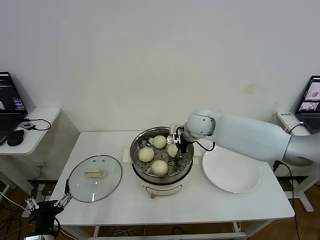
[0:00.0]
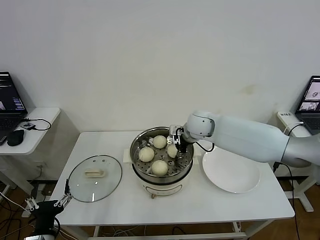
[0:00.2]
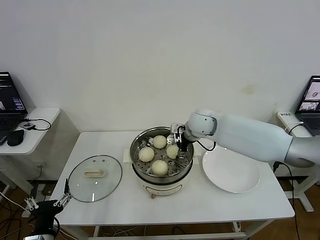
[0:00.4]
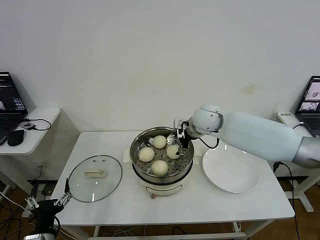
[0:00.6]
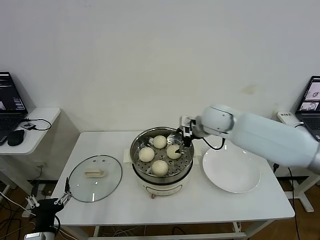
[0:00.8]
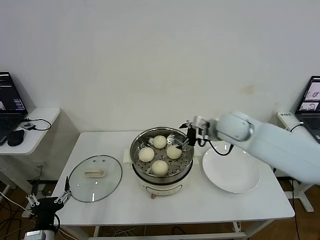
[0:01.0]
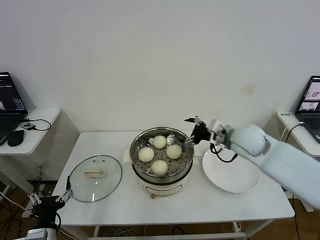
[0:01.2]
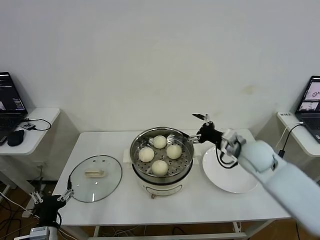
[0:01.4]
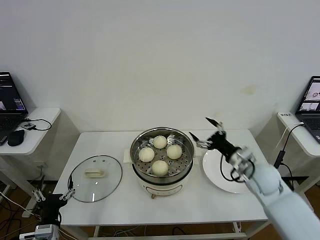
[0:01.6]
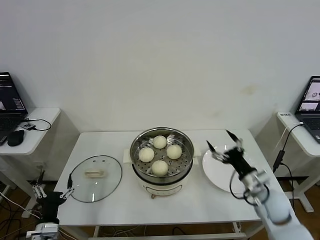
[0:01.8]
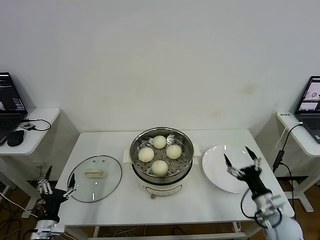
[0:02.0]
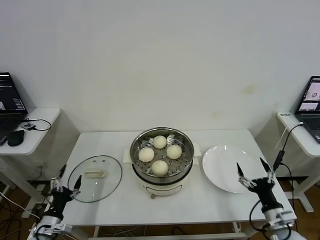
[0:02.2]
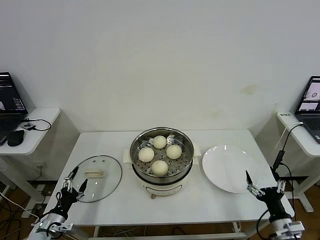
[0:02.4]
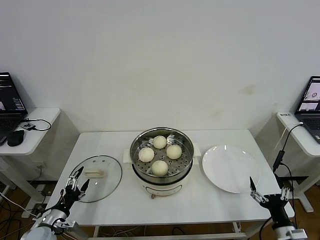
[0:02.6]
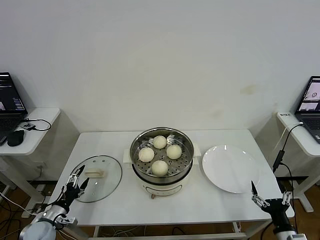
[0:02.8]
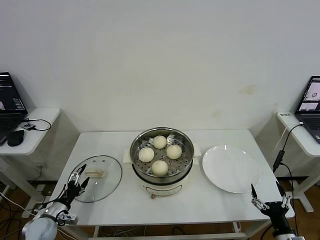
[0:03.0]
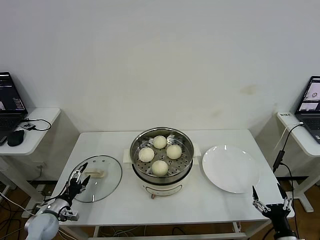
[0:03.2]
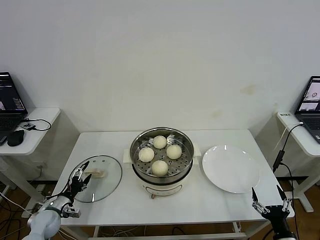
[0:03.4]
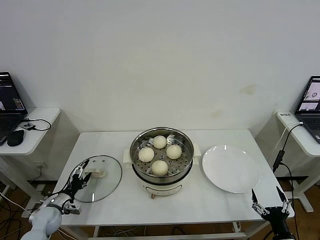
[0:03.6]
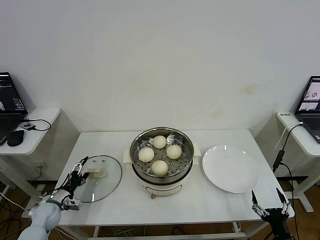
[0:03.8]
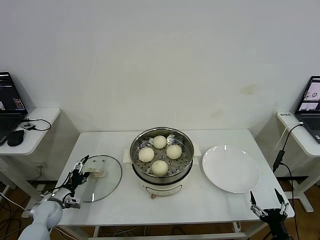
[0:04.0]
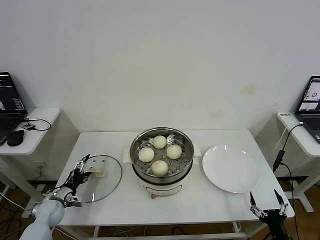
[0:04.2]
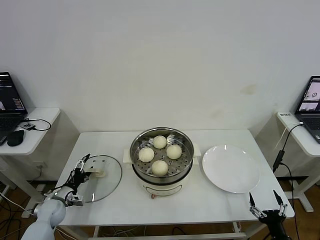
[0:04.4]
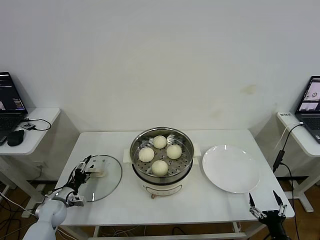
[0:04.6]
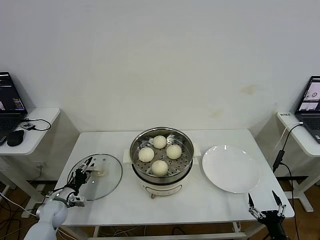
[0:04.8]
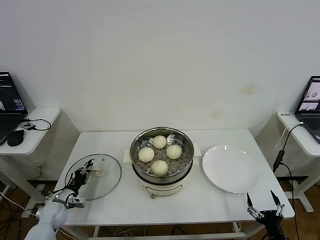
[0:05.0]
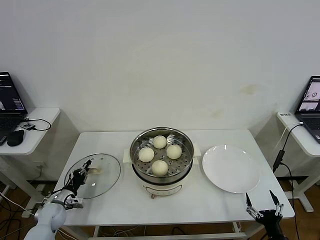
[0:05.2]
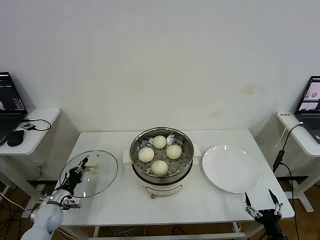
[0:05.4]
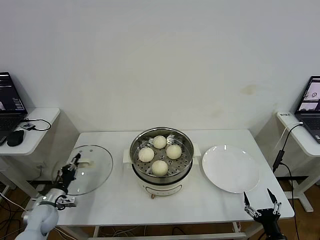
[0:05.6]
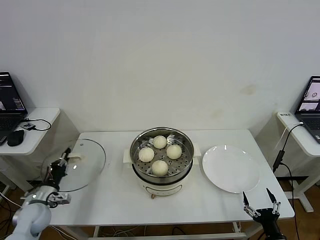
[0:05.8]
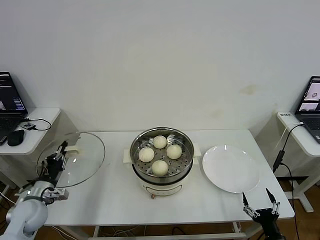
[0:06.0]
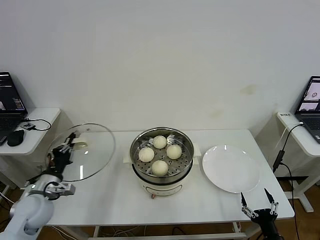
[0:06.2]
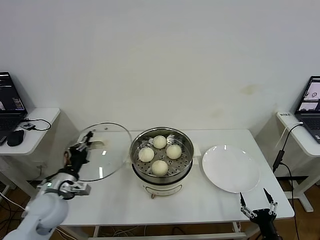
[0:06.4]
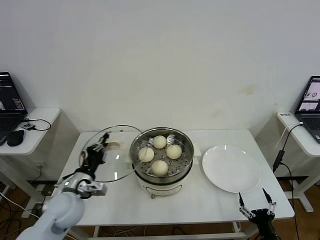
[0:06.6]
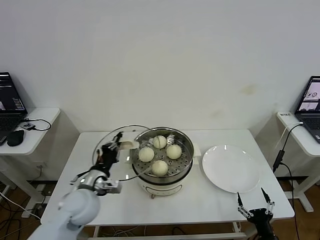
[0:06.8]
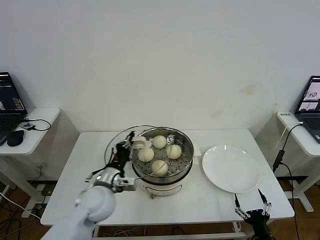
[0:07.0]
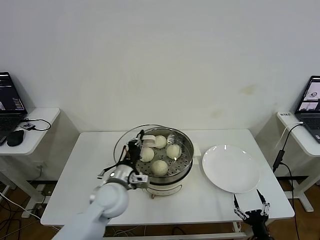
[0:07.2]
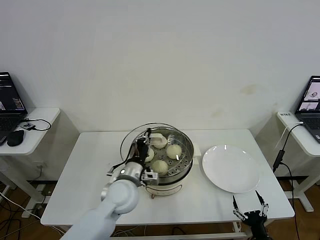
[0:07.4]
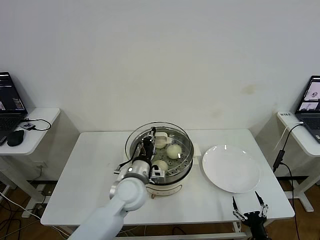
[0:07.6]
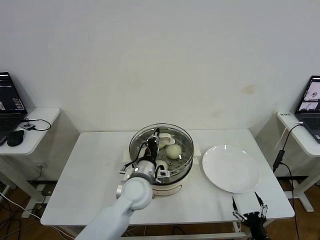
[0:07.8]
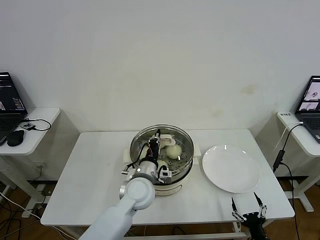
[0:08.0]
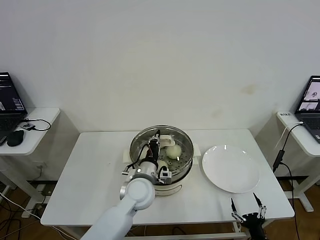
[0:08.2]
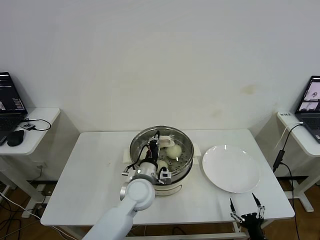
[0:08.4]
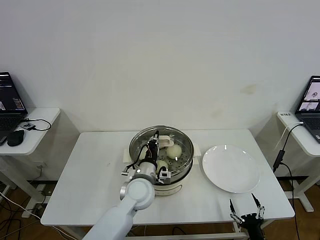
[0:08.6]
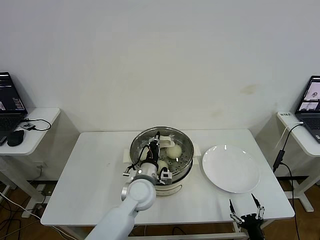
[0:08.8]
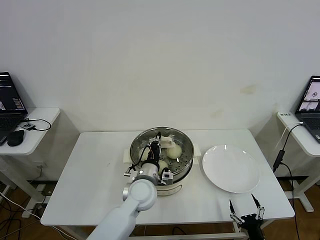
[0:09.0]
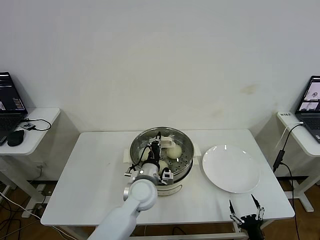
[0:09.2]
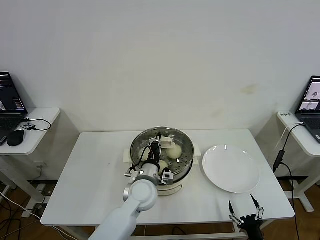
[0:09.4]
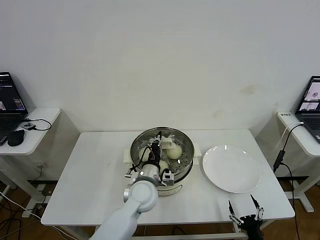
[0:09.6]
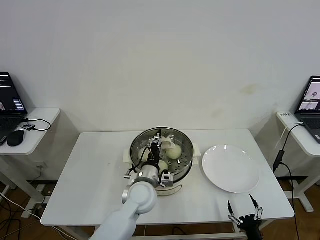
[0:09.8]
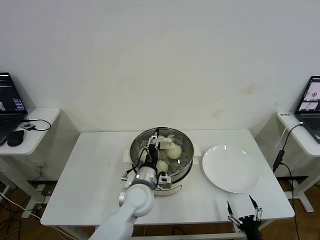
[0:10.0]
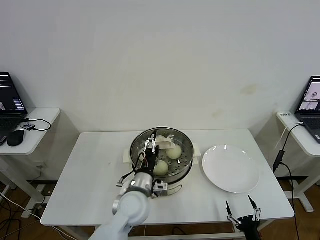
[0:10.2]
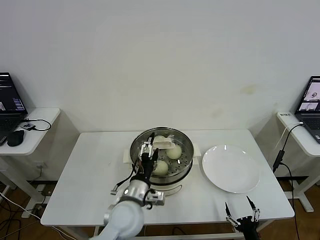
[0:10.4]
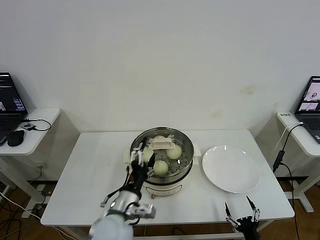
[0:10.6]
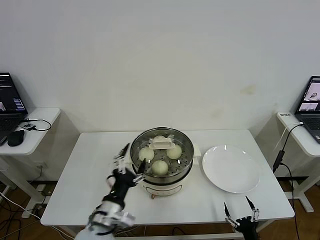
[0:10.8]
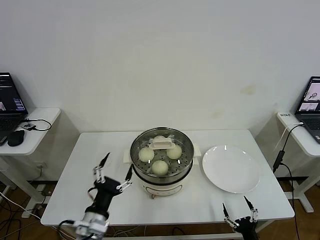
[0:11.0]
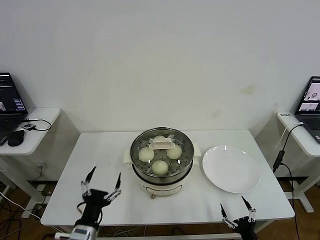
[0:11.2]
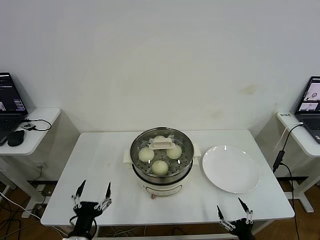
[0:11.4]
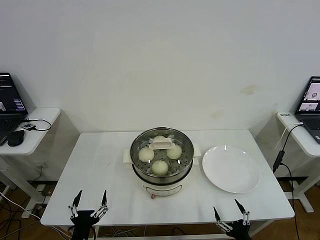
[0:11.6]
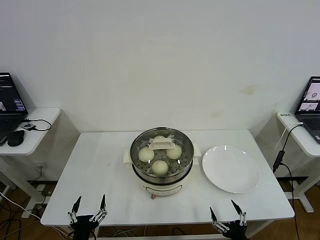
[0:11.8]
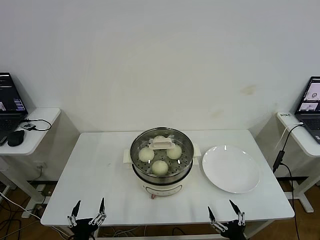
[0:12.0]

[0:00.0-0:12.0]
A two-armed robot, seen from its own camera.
Step, 0.6 to 5.4 s: Grasp the pot lid with left gripper.
Step, 5.6 to 9.8 s: Place the pot lid on the steamer with left gripper.
0.0 to 1.6 s: The right gripper goes some 25 cm to the right, backward and downward, and opens.
1.6 to 3.0 s: The left gripper moves forward, to the left and downward, roughly 15 cm. Meanwhile the right gripper goes roughly 25 cm backward and downward.
3.0 to 4.4 s: The left gripper moves forward, about 5 cm.
4.4 to 6.0 s: The left gripper is displaced upward by about 10 cm, and closes.
6.0 to 7.6 s: The left gripper heads to the right, covering about 30 cm.
7.6 to 9.0 s: The grippers make only small movements.
9.0 to 10.4 s: The left gripper travels backward by some 5 cm, and opens up.
10.4 to 12.0 s: The right gripper travels upward by some 5 cm. The left gripper heads backward, to the left and downward, covering about 25 cm.

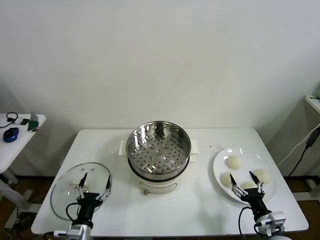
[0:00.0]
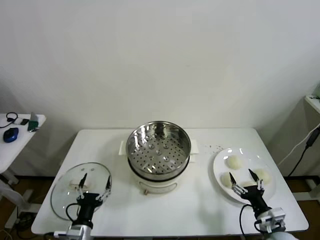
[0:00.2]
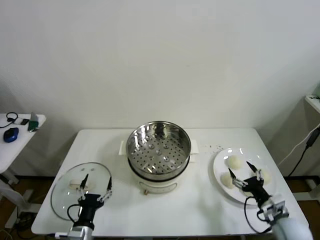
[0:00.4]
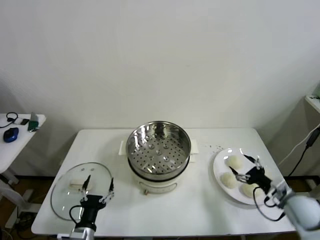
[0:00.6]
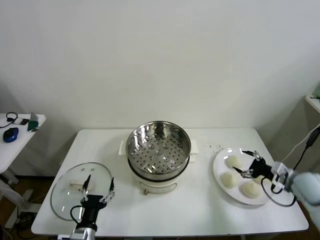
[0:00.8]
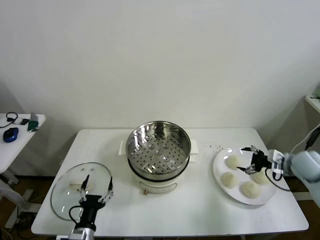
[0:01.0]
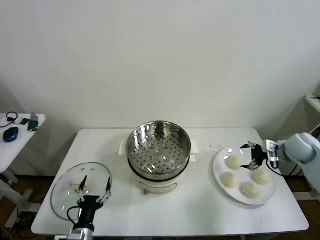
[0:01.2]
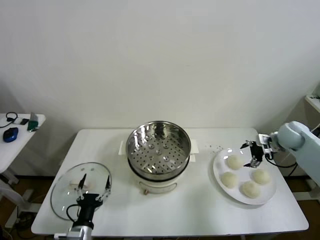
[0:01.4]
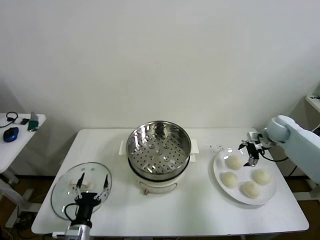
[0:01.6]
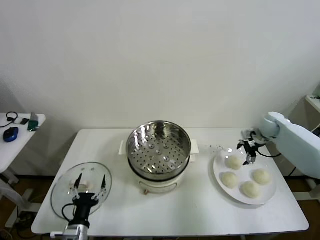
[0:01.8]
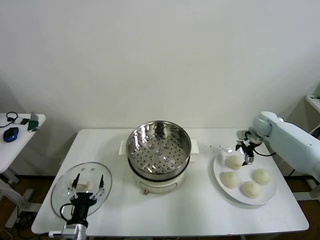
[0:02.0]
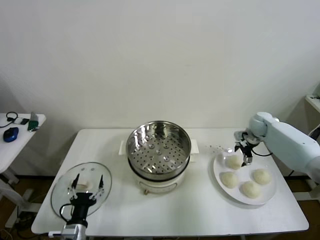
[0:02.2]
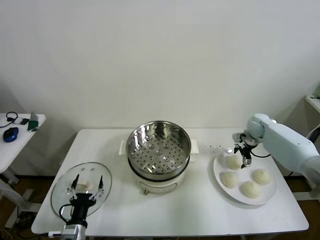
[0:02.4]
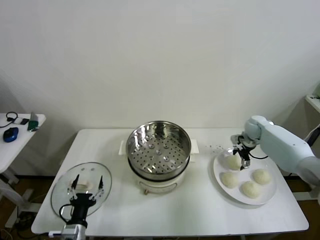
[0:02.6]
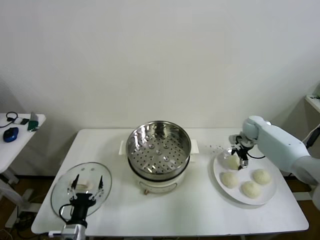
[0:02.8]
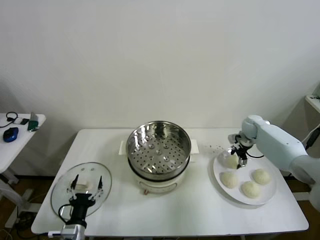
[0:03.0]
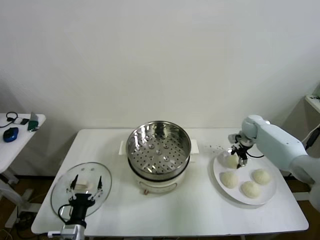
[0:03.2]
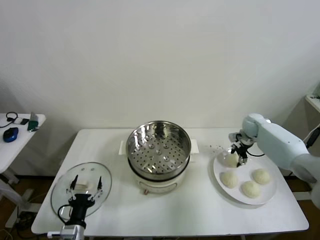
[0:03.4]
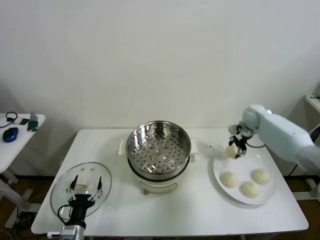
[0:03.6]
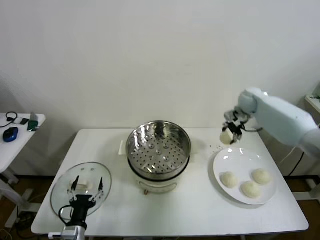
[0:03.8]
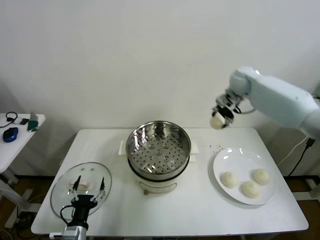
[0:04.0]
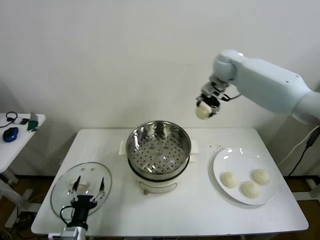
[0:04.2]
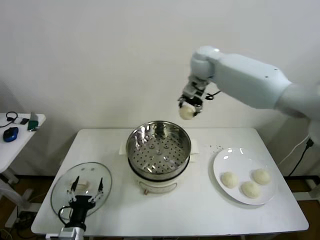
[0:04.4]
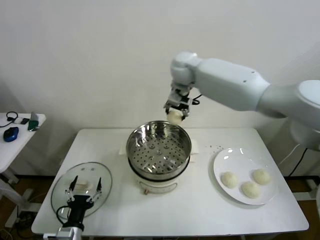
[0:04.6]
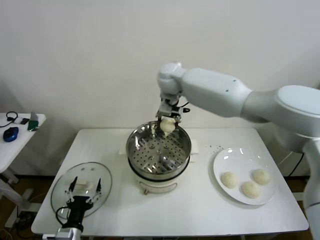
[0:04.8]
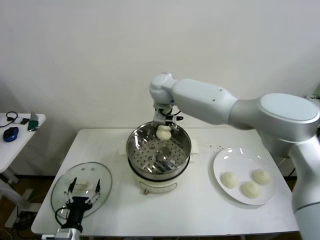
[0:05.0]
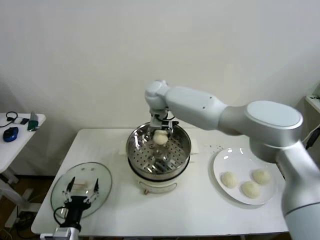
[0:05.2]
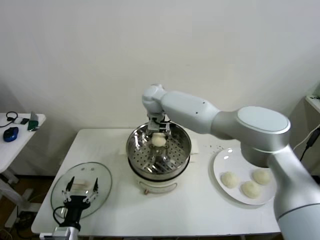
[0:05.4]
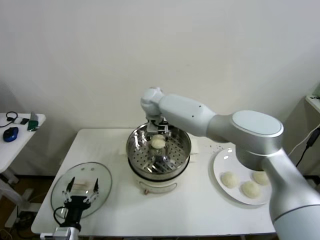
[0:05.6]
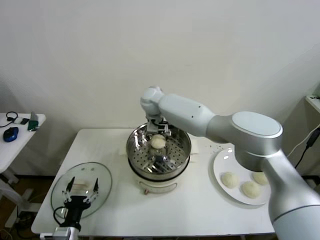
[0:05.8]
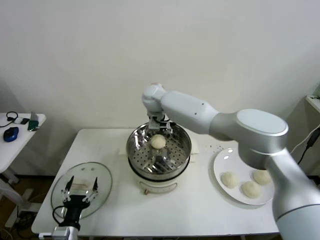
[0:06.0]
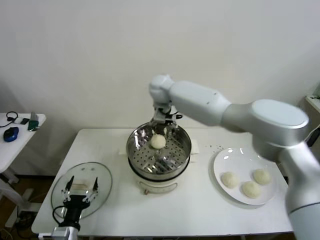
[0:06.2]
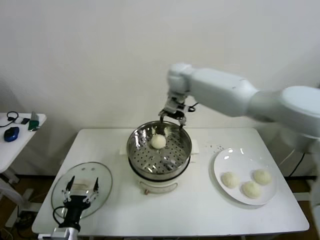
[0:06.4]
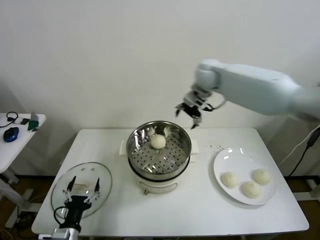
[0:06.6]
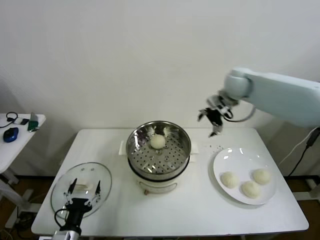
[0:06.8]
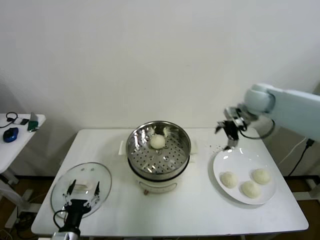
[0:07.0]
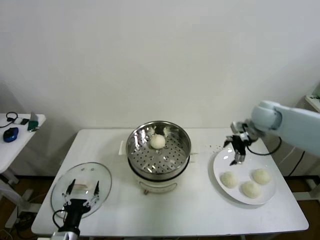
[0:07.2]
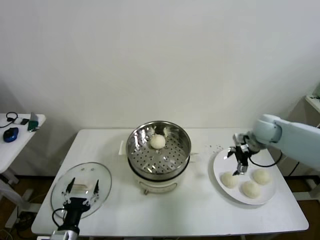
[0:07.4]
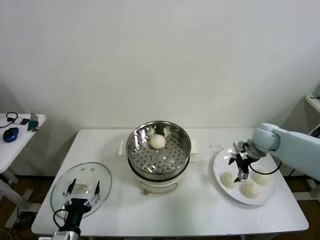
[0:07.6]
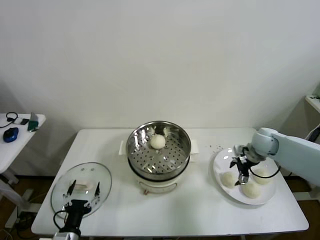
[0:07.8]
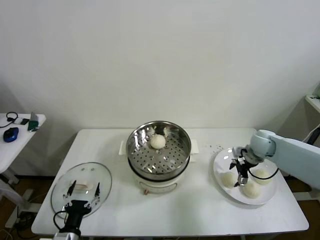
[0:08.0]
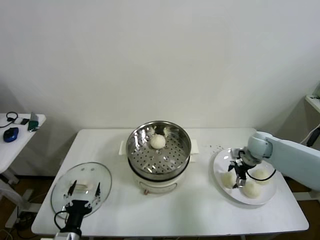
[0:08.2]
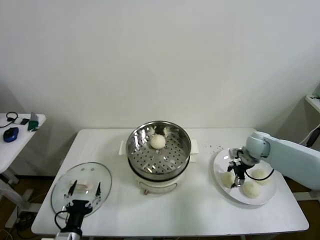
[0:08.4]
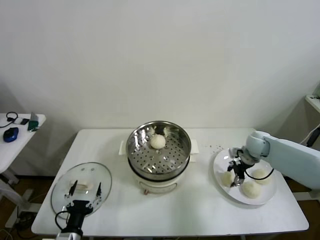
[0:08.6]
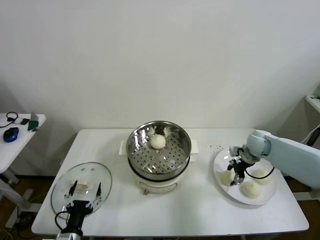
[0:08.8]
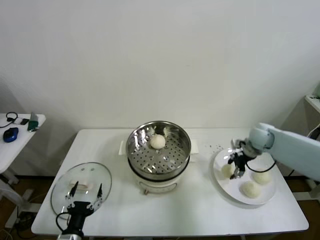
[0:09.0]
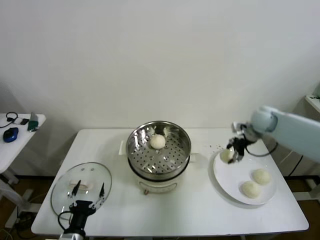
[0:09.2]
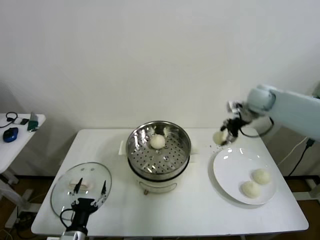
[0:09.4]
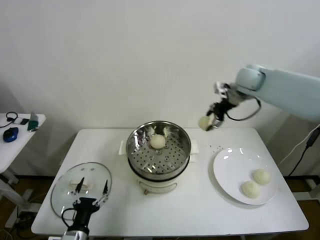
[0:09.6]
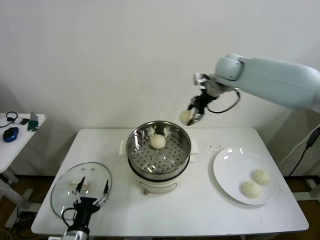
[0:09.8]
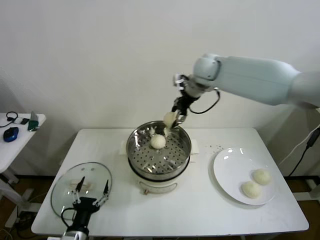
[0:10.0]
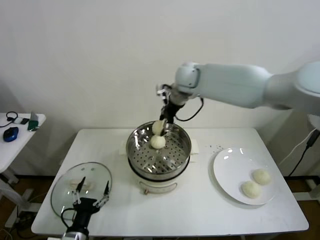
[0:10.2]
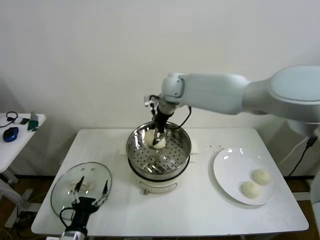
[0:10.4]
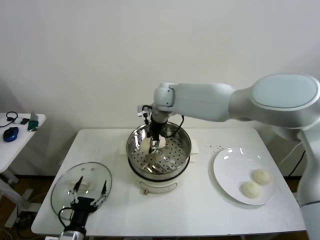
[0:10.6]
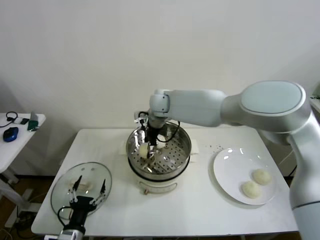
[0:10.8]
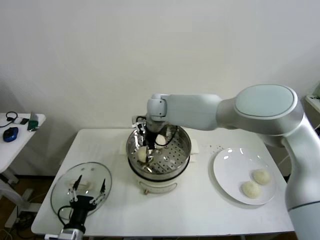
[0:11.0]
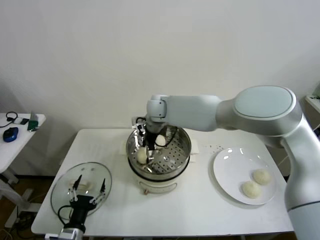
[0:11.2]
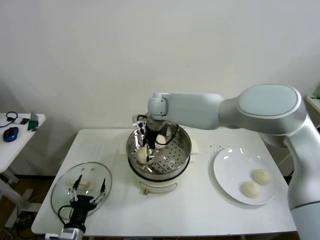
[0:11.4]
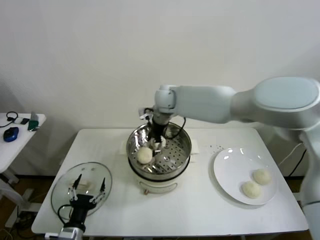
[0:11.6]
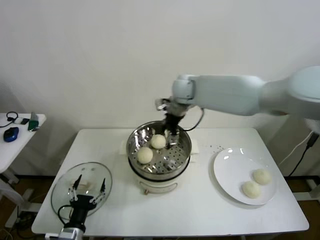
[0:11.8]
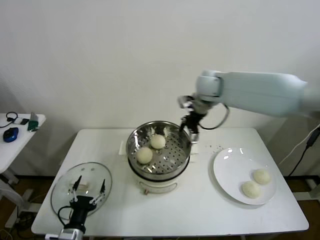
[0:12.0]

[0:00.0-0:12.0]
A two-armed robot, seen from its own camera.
Step, 0.0 to 3.0 s: Grasp the baozi in the plate with right gripper.
Step, 3.2 to 5.6 s: Place the baozi on the steamer with right gripper.
Step, 5.8 to 8.6 s: Grasp the baozi in the plate with right gripper.
Step, 8.8 to 11.0 s: Place the baozi on the steamer with right gripper.
1.6 to 3.0 s: The right gripper goes about 5 cm downward and forward, and closes its fingers.
3.0 to 4.4 s: The right gripper goes approximately 40 cm to the left and upward.
4.4 to 6.0 s: The right gripper is displaced to the left and downward by some 15 cm, and opens up.
6.0 to 7.6 s: The right gripper heads to the right, covering about 40 cm.
7.6 to 9.0 s: The right gripper closes.
9.0 to 10.4 s: The right gripper is displaced to the left and upward by some 35 cm.
10.4 to 12.0 s: The right gripper moves to the right, about 15 cm, and opens up.
